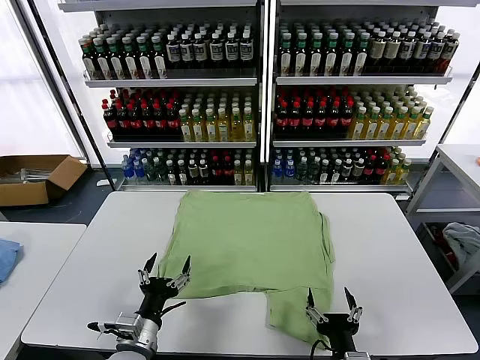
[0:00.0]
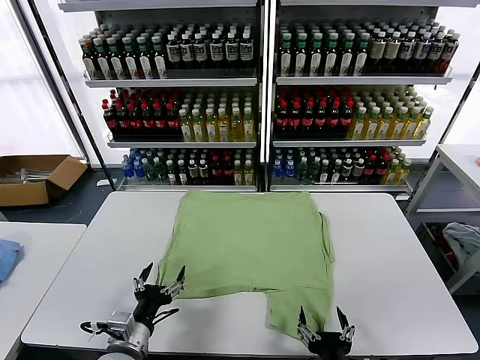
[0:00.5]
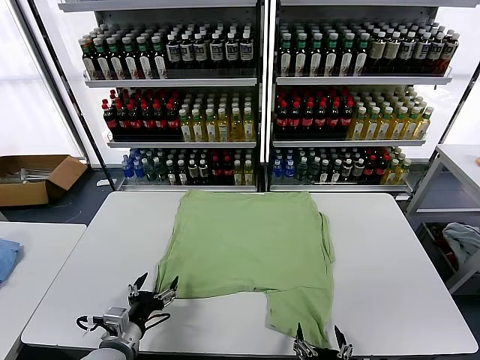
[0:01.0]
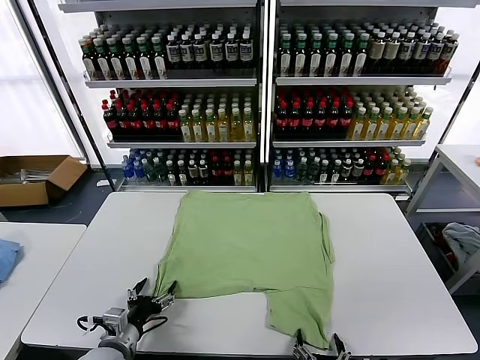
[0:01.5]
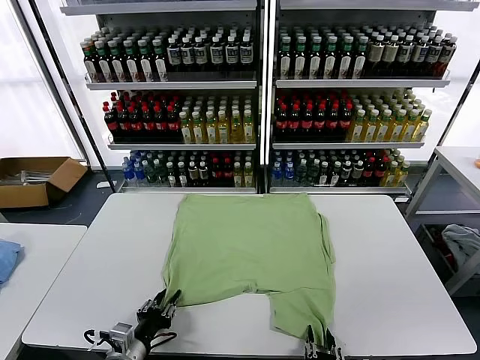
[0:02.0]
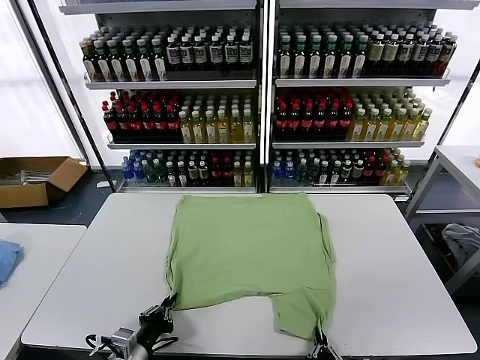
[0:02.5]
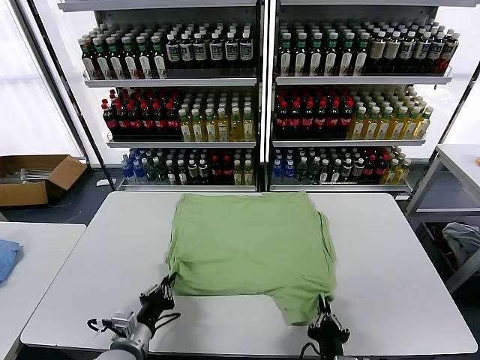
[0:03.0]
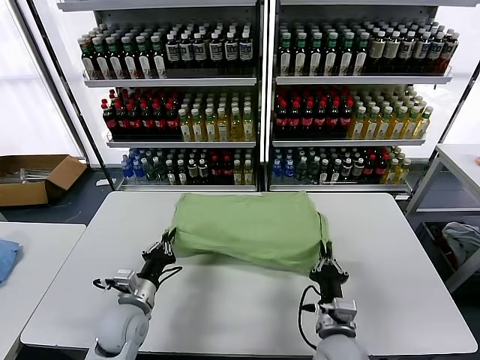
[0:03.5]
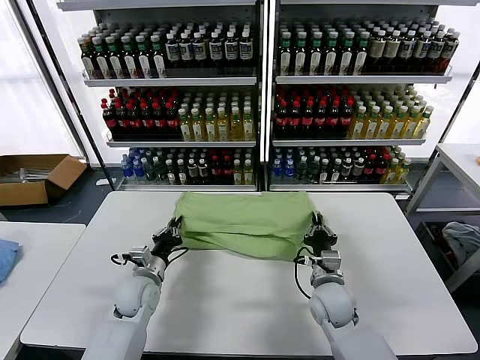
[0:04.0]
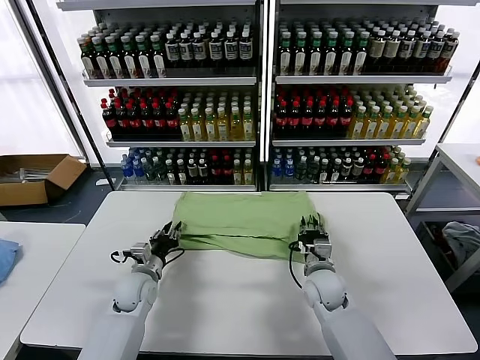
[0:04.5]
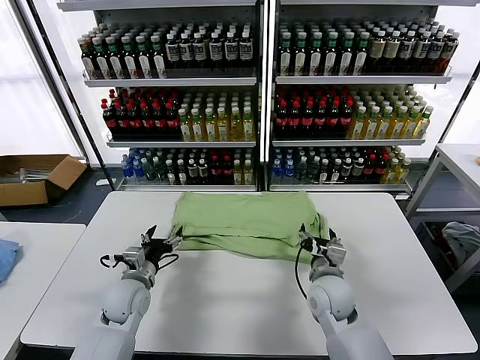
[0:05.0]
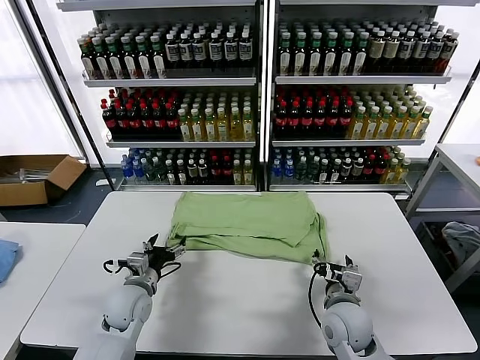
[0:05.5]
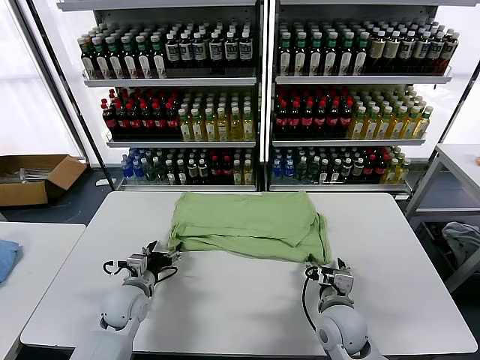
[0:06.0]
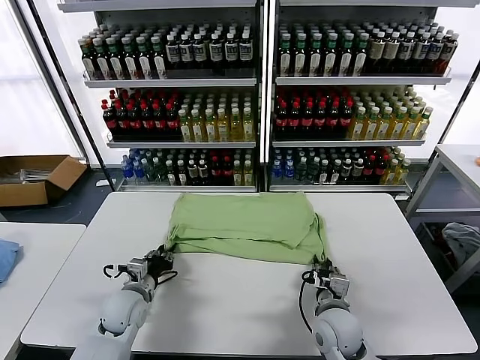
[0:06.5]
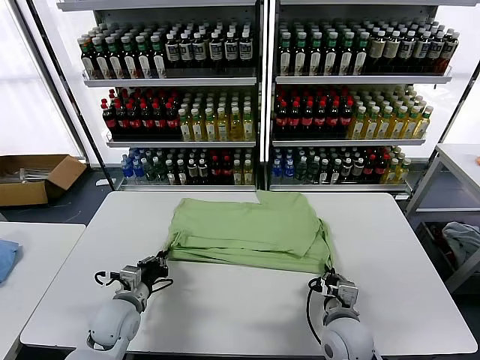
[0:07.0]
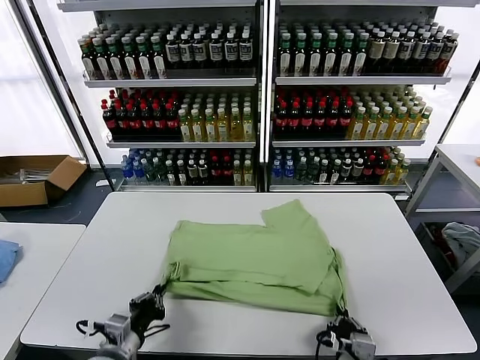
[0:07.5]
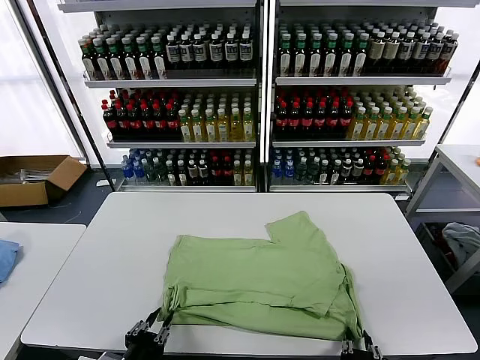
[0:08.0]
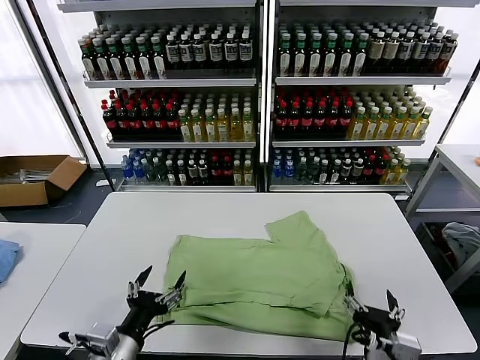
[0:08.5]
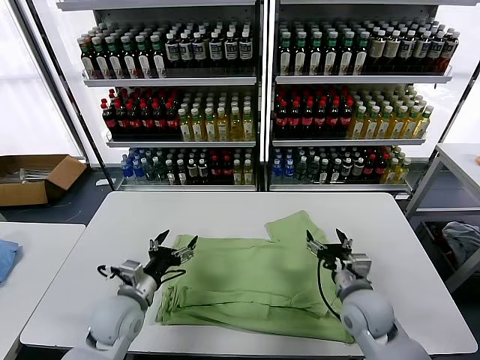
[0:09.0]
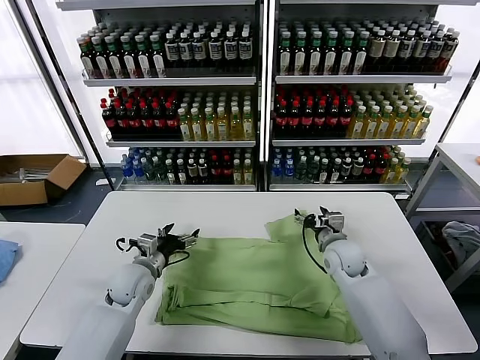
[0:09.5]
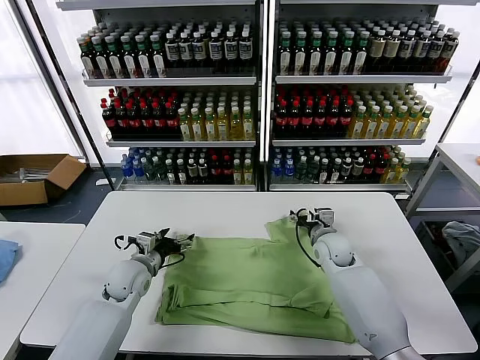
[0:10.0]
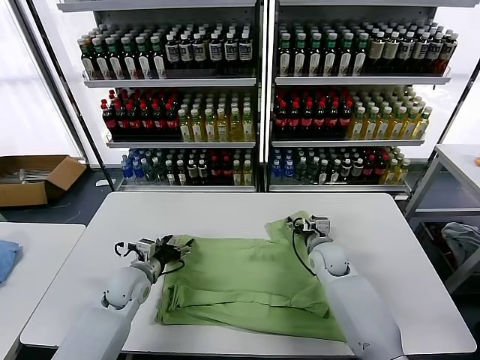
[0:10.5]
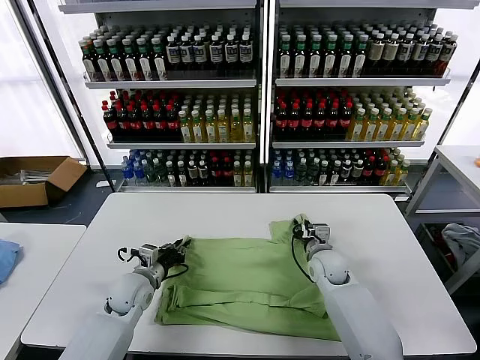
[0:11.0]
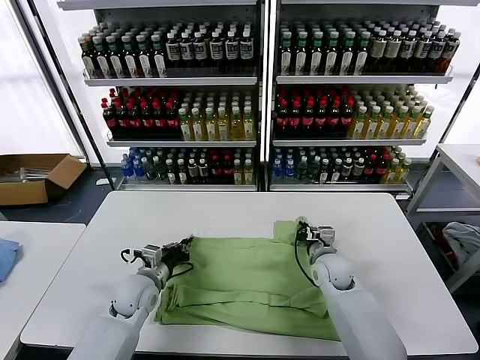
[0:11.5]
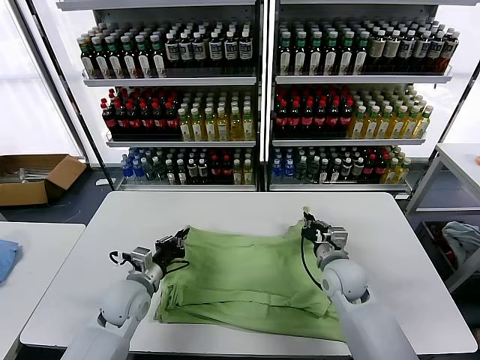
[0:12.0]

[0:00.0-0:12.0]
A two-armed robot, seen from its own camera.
Task of the whole recording: fold and organize the clothes.
Step, 0:00.0 to 0:02.0: use both grippers simultaneously to clamp the lower edge of the clothing fabric.
Step, 0:02.5 to 0:04.5: use both grippers to drag the lower edge of the fabric forward and fold it over the upper edge.
Step, 0:05.0 to 0:08.0: Drag the clothes downward with both gripper.
Step, 0:08.5 to 0:11.0: use both grippers simultaneously to clamp the upper edge of the clothing fabric.
0:02.0 to 0:04.0: Both grippers travel together forward, approximately 25 cm. The left gripper closes up.
0:04.0 to 0:06.0: The right gripper goes approximately 5 cm backward, and opens its fingers. Meanwhile the left gripper opens its fingers.
0:06.0 to 0:08.0: The two grippers go about 20 cm backward. The right gripper closes, then opens again. The left gripper closes.
0:08.0 to 0:10.0: Both grippers move forward, some 35 cm. The right gripper opens; the left gripper opens its fingers.
0:10.0 to 0:12.0: The right gripper moves backward, about 10 cm, and closes, while the left gripper travels backward by approximately 5 cm, and closes its fingers.

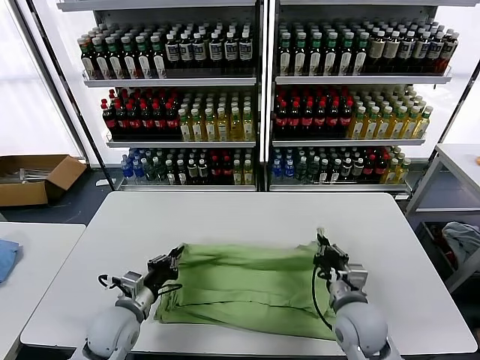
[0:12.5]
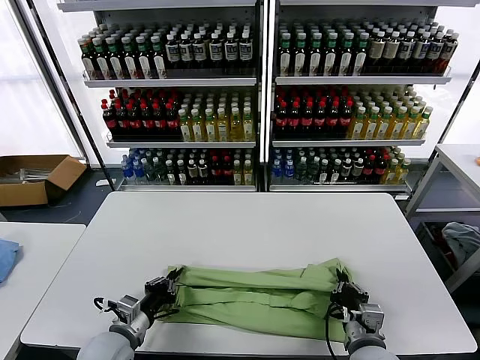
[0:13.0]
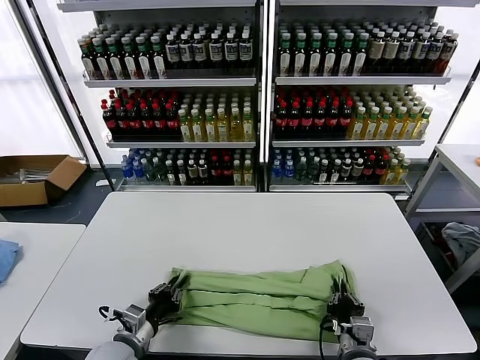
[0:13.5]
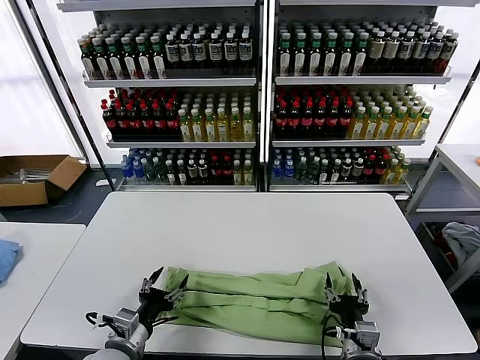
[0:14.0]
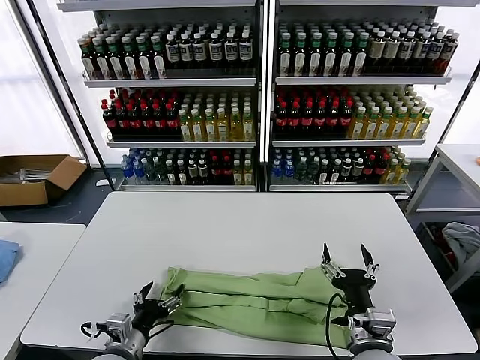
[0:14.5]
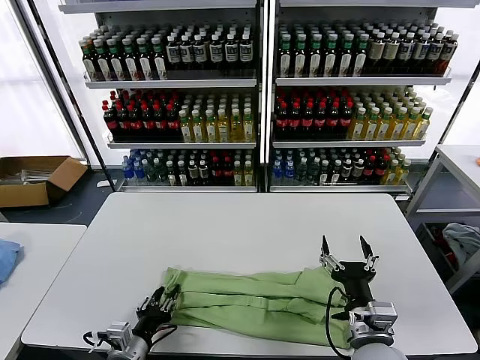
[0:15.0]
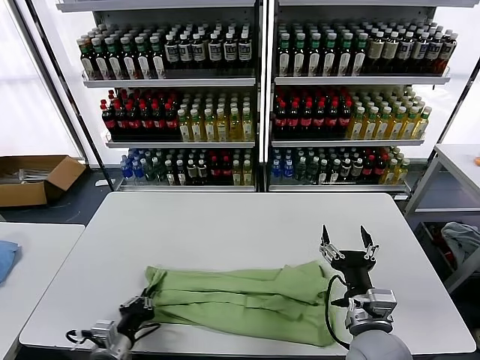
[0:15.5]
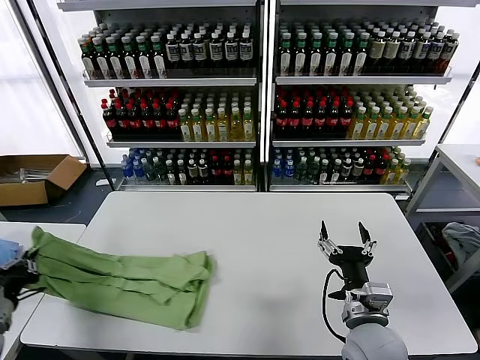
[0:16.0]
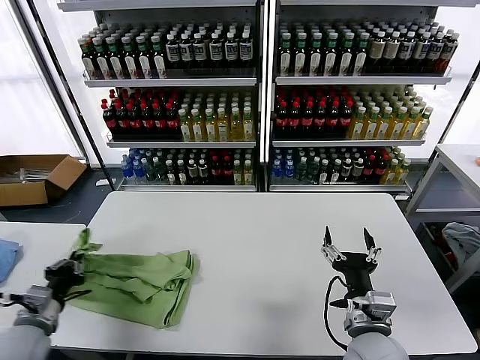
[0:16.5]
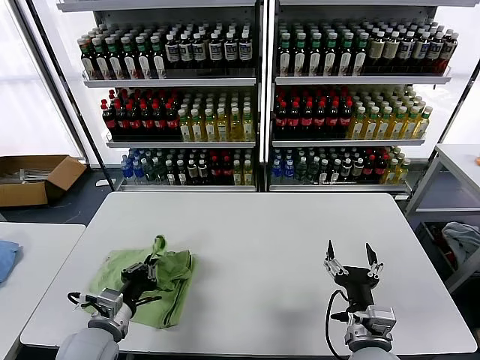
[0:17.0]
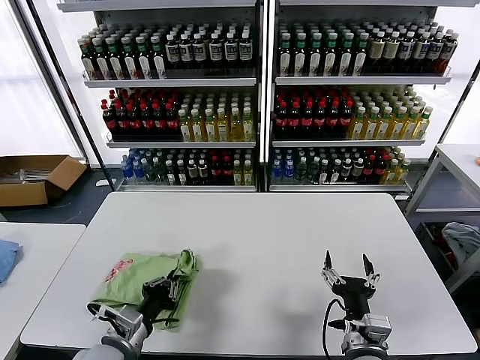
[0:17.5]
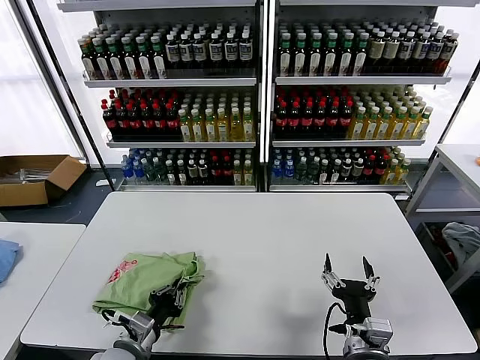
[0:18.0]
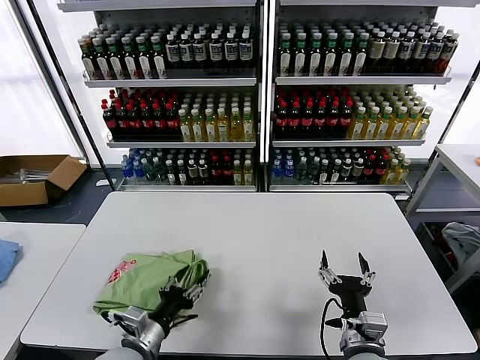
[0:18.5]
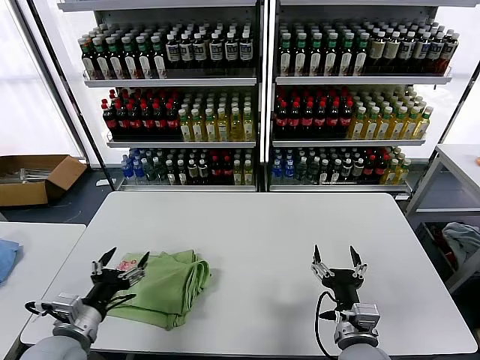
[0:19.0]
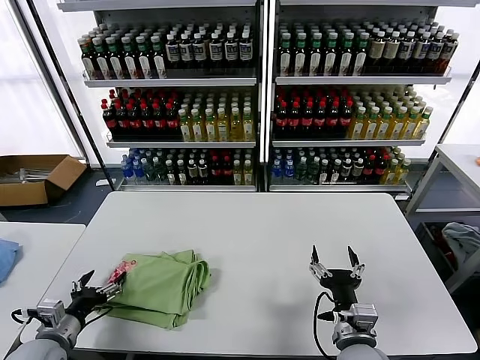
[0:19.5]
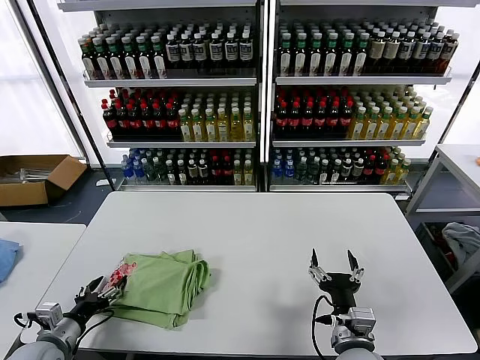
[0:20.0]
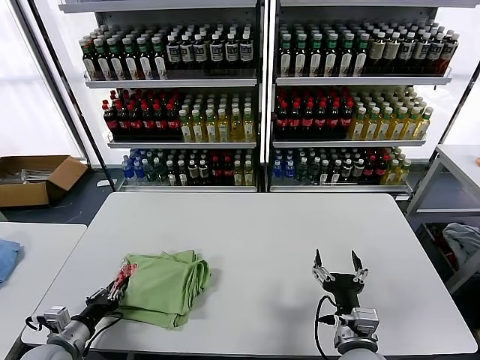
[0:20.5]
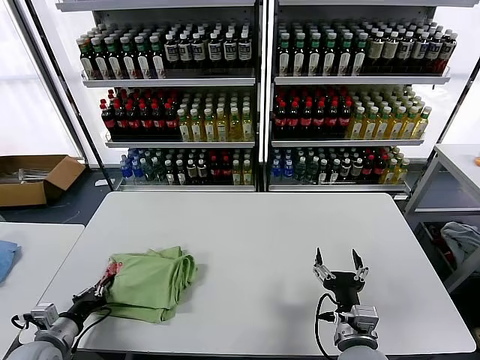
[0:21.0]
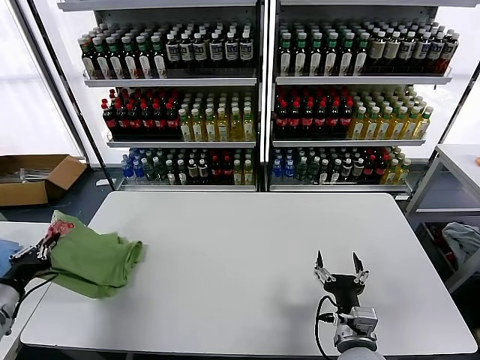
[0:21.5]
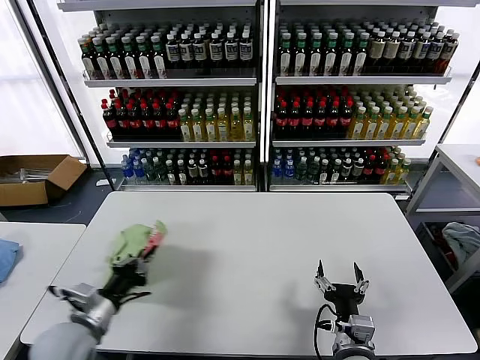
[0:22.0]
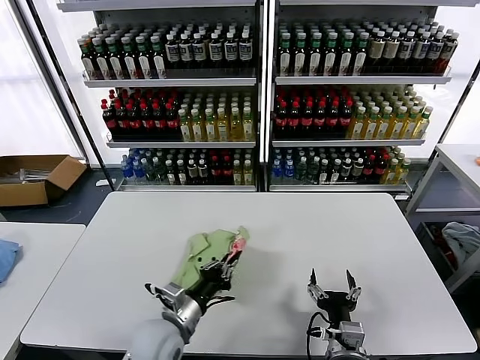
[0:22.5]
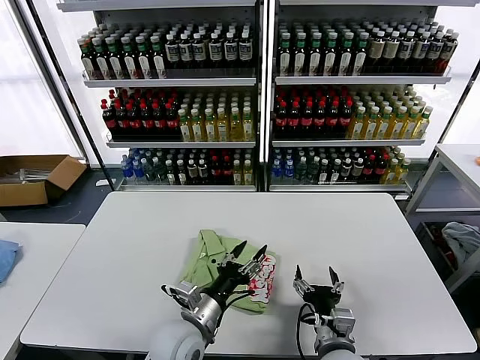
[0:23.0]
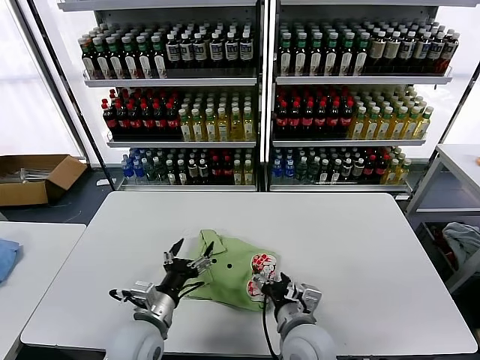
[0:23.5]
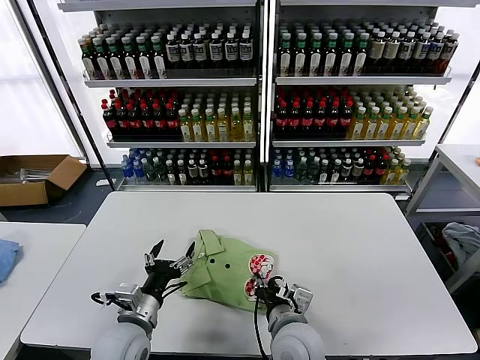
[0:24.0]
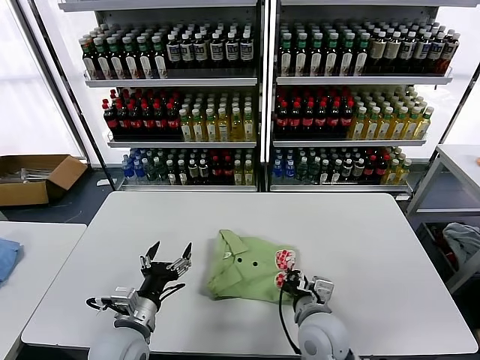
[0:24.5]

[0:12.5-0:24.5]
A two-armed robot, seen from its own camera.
Task of the whole recording: fold and organize the clothes.
Step, 0:12.5 to 0:14.0: use both grippers to drag the upper edge of the fabric backward and fold it over the lower edge.
Step, 0:14.5 to 0:15.0: use the left gripper to clamp the left edge of the fabric.
Step, 0:15.5 to 0:18.0: use the left gripper to drag the left edge of the fabric to the left and folds it over the right edge.
Step, 0:19.0 to 0:22.5: Flip the folded clothes over with left gripper.
0:12.5 to 0:14.5: The grippers both shift backward by roughly 10 cm. The left gripper opens; the right gripper opens.
0:14.5 to 0:16.5: The left gripper goes some 15 cm to the left, and closes.
0:16.5 to 0:18.5: The left gripper heads to the right, covering approximately 20 cm, and opens.
0:18.5 to 0:20.5: The left gripper is displaced to the left by about 20 cm, and opens, then closes once more.
0:20.5 to 0:22.5: The left gripper goes some 25 cm to the right.
0:22.5 to 0:24.5: The left gripper ends up approximately 5 cm from where it was, and opens its fingers; the right gripper shifts about 10 cm forward and to the left, and closes up.

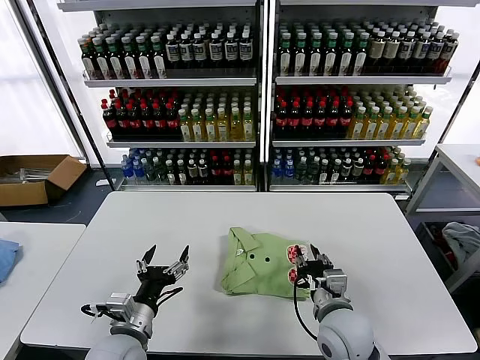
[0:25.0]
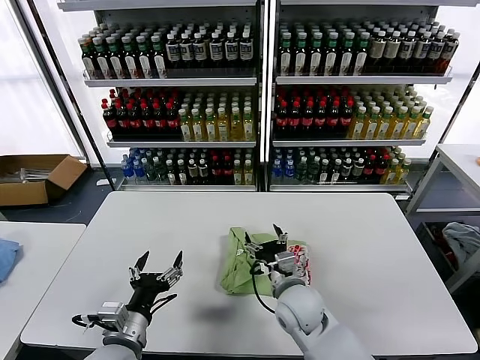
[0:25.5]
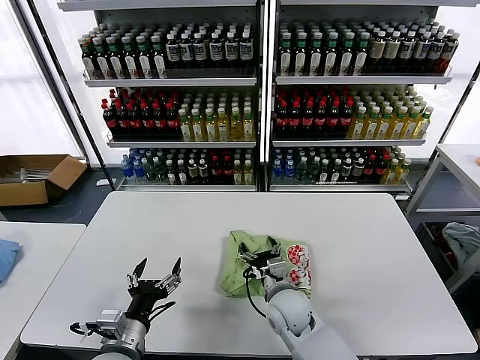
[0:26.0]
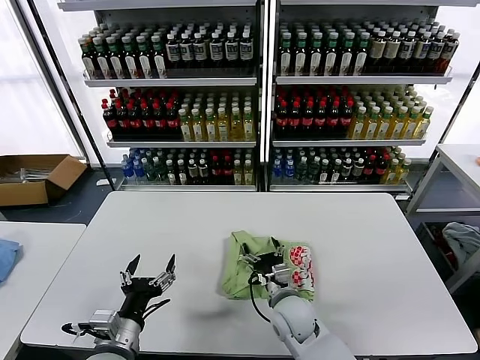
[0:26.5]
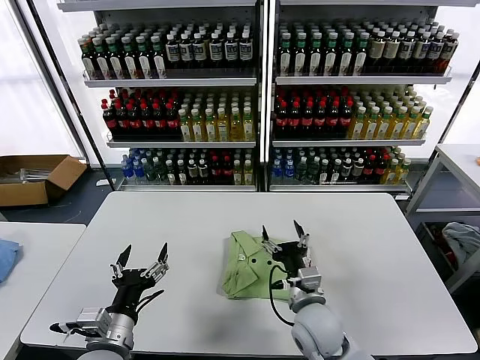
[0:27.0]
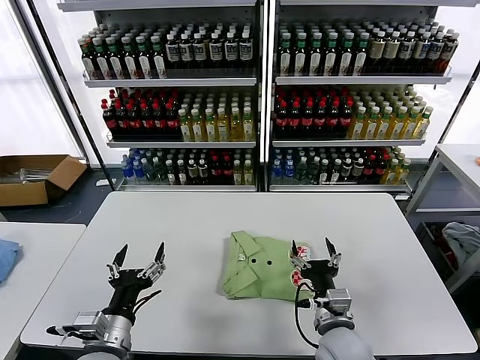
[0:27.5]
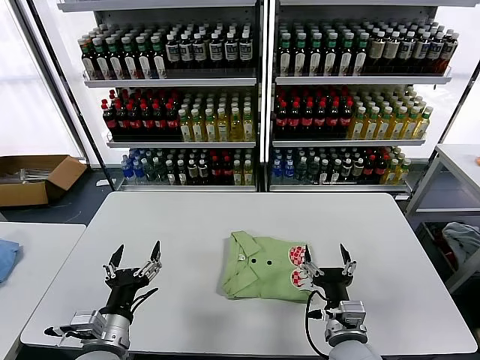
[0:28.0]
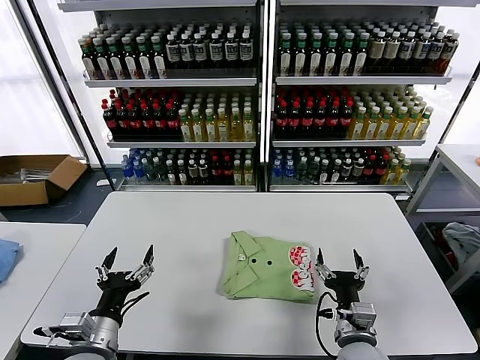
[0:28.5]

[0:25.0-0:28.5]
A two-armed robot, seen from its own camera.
Task of the whole recording: fold and organize the clothes.
0:25.0 to 0:27.0: The right gripper travels to the left by approximately 5 cm, and opens up.
0:27.0 to 0:28.5: The right gripper shifts about 10 cm to the right and backward.
